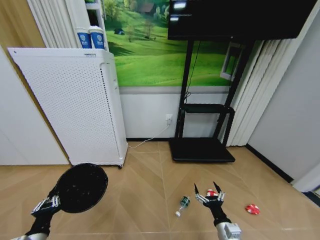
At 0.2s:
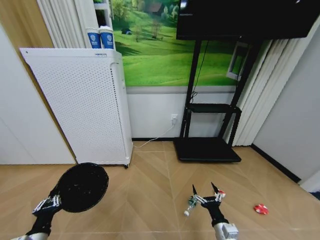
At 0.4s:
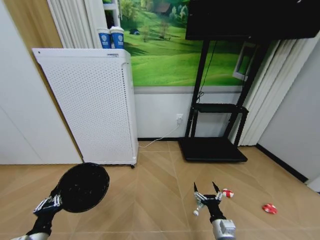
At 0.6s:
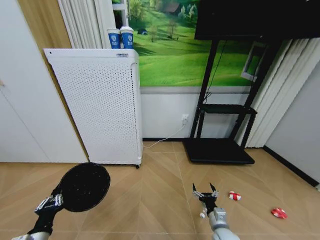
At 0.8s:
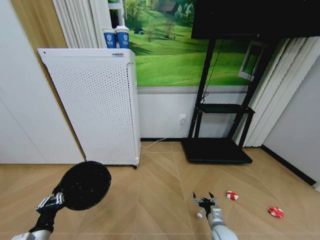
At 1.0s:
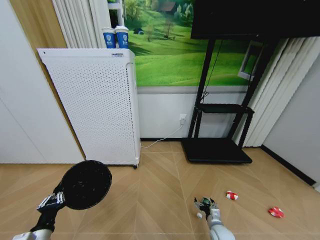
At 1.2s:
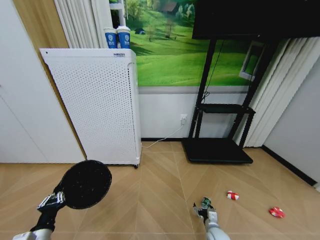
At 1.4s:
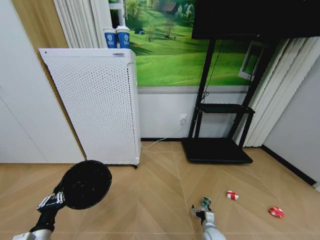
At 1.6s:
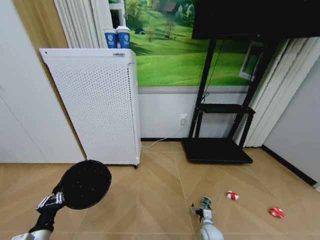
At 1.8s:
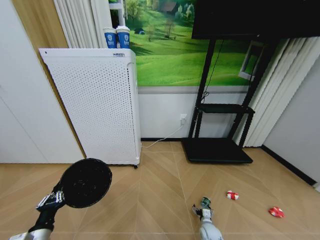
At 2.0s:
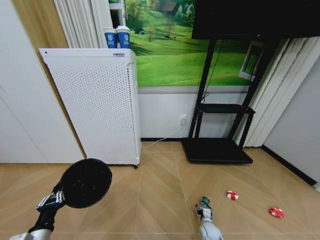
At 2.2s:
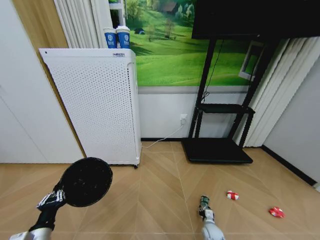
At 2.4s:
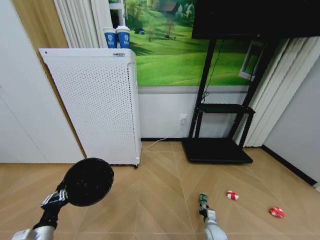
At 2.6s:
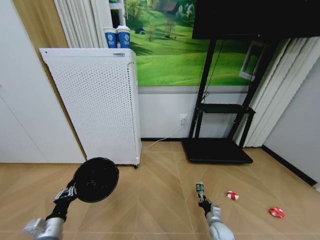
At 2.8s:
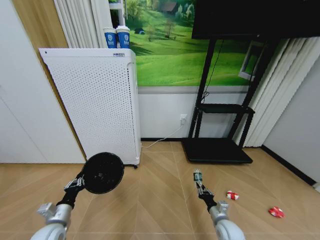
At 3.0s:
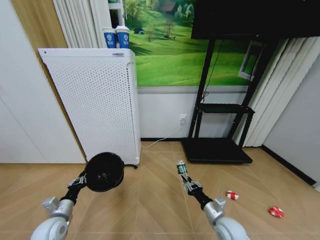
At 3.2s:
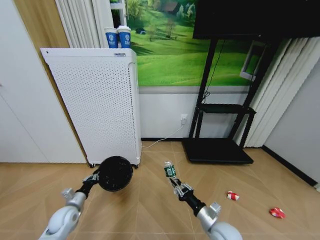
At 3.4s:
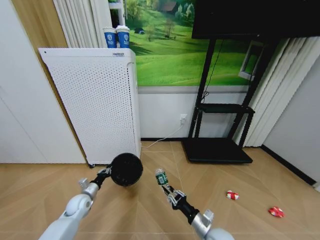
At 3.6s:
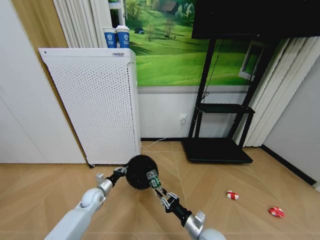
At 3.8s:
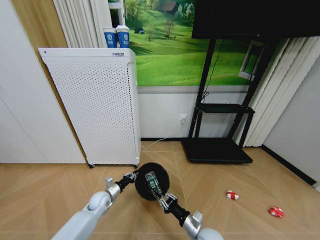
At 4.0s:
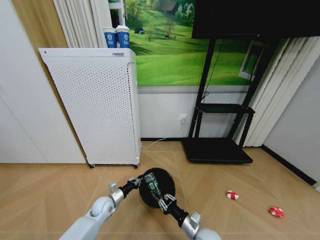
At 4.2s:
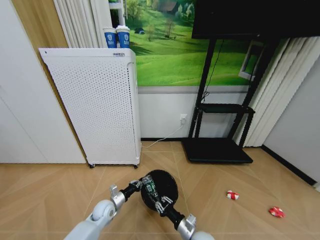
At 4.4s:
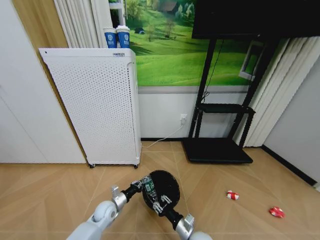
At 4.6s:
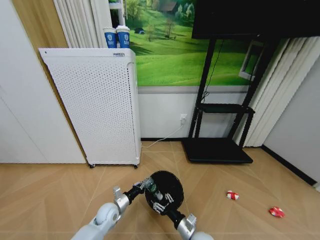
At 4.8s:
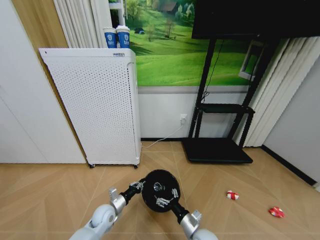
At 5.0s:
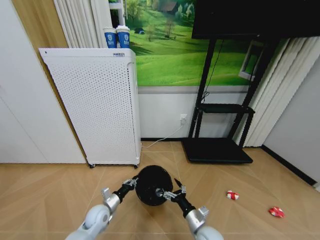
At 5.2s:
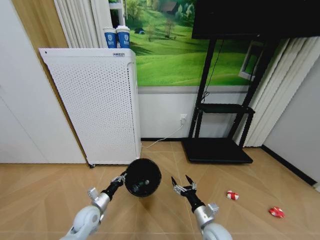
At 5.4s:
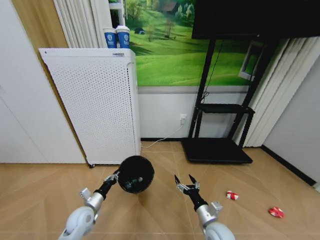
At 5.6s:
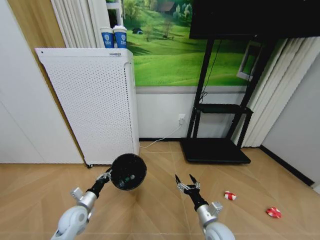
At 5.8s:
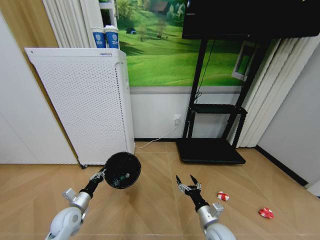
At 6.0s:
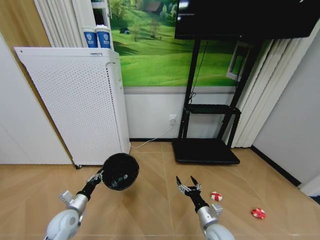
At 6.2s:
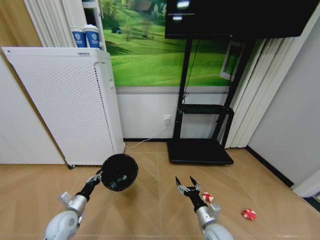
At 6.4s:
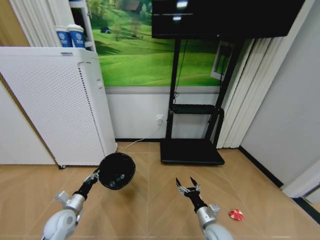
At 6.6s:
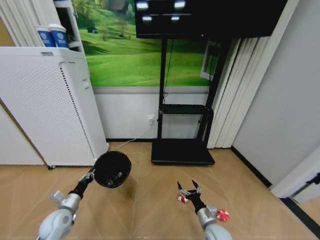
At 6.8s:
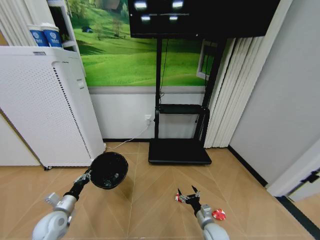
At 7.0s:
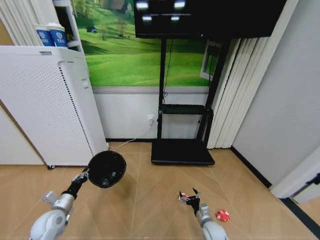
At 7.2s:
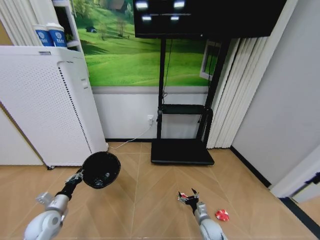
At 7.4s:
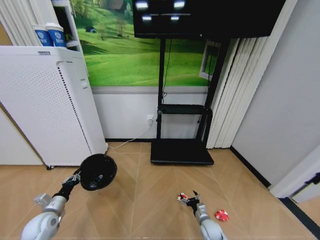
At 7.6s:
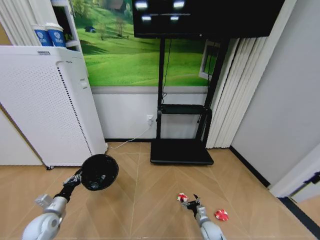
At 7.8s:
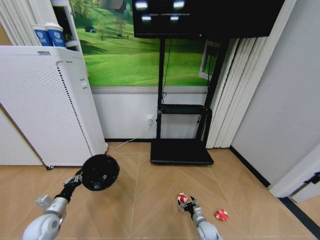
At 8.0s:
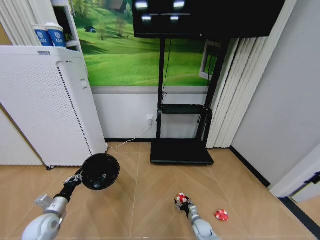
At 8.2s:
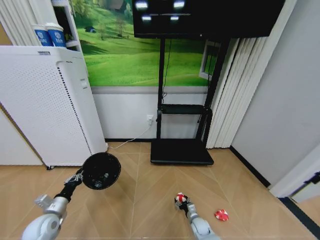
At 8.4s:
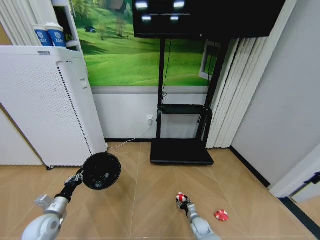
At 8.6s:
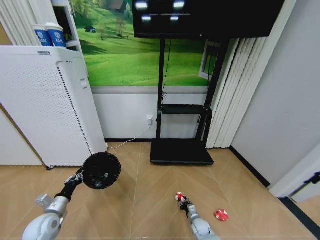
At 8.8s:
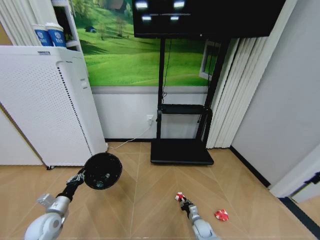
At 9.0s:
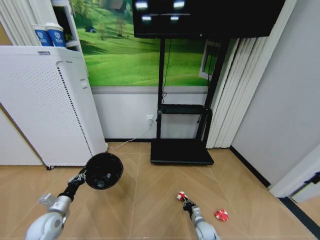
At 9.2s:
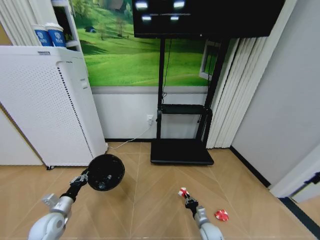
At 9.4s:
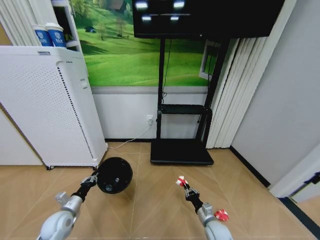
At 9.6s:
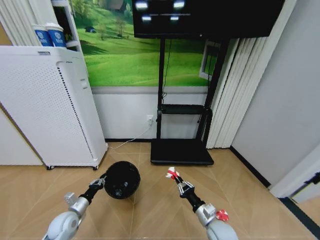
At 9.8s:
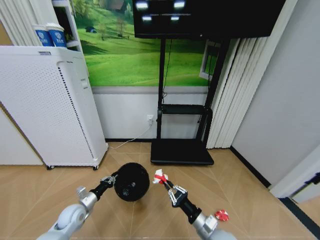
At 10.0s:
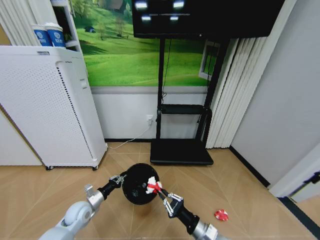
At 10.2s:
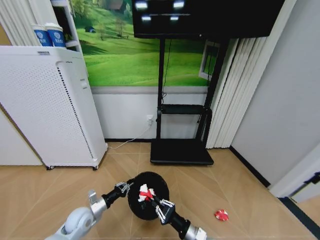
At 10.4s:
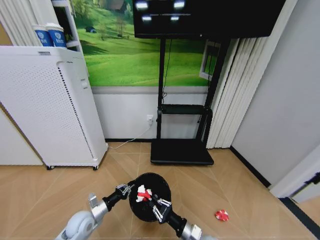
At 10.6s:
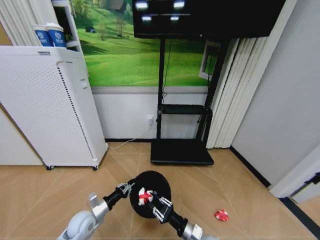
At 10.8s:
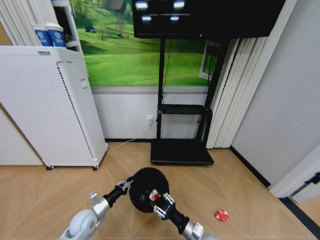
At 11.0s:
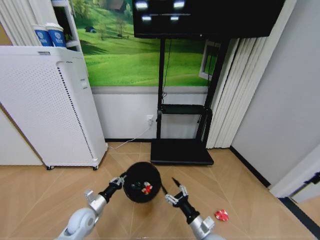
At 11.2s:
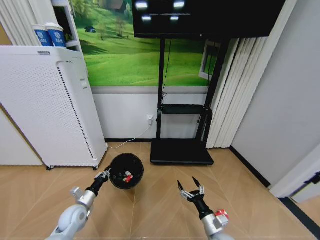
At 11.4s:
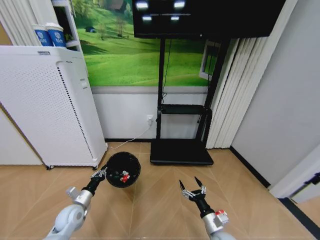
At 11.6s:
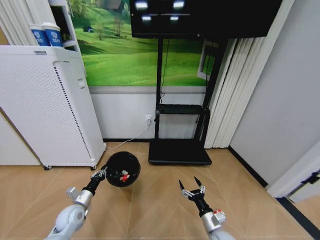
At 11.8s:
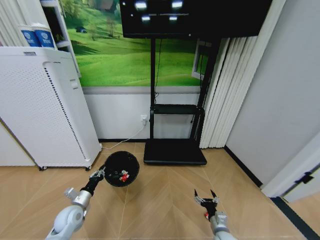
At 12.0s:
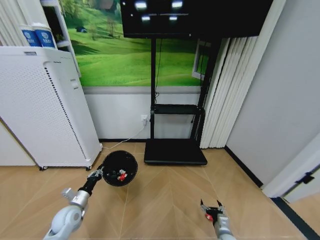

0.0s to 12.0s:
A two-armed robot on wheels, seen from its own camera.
Task of the whole recording: Pick up the trash bin and place the garbage on the floor into it.
0.0s to 1.6s: The right gripper moves downward and forward, approximately 20 cm.
1.6s to 3.0s: The left gripper shifts approximately 10 cm forward, while the right gripper travels upward by about 20 cm, and closes.
3.0s to 4.4s: The right gripper heads to the left and downward, covering approximately 10 cm. The left gripper goes some 20 cm to the right, forward and downward.
4.4s to 6.0s: The right gripper is displaced to the right by roughly 5 cm, and opens. The left gripper is displaced to the left, upward and backward by some 15 cm.
6.0s to 7.6s: The right gripper travels downward by approximately 15 cm, while the left gripper travels to the left by approximately 10 cm.
7.6s to 9.0s: The right gripper closes its fingers.
9.0s to 10.4s: The right gripper moves upward, backward and to the left, approximately 25 cm. Meanwhile the left gripper goes roughly 10 cm to the right.
10.4s to 12.0s: The right gripper shifts approximately 20 cm to the right and downward, and opens up. Meanwhile the left gripper goes about 5 cm to the left.

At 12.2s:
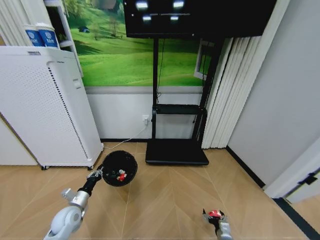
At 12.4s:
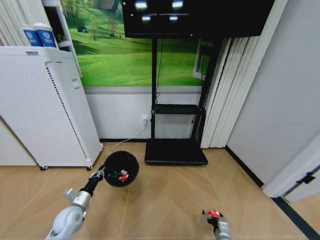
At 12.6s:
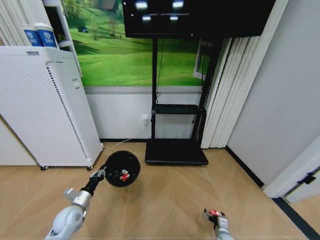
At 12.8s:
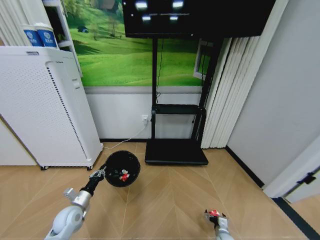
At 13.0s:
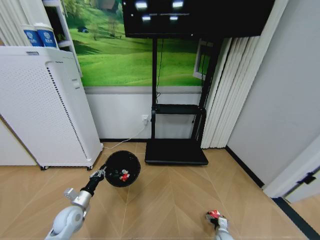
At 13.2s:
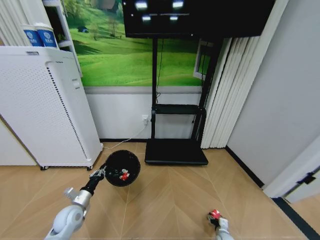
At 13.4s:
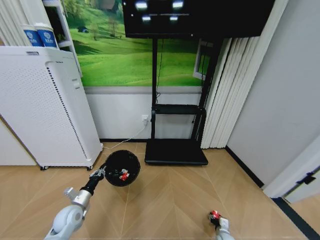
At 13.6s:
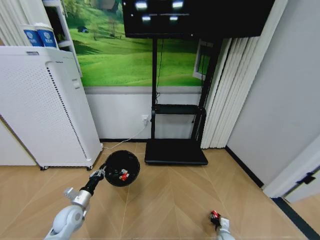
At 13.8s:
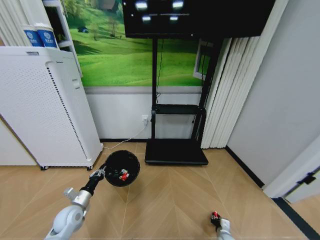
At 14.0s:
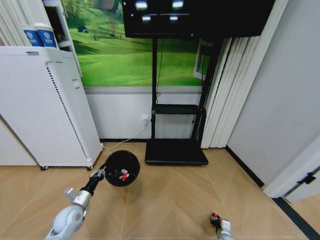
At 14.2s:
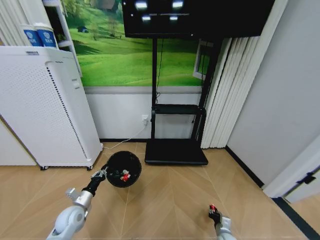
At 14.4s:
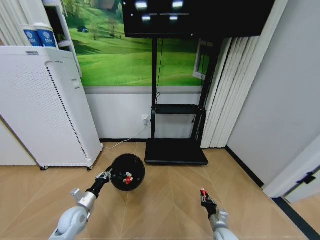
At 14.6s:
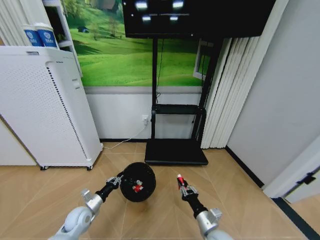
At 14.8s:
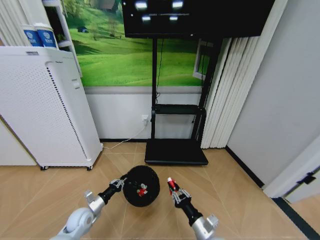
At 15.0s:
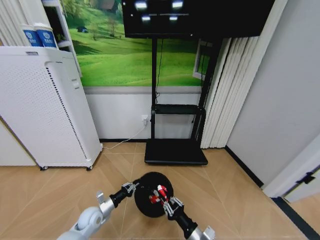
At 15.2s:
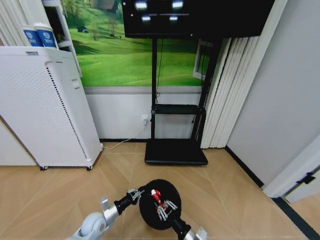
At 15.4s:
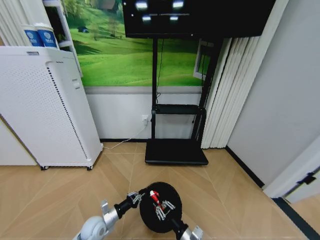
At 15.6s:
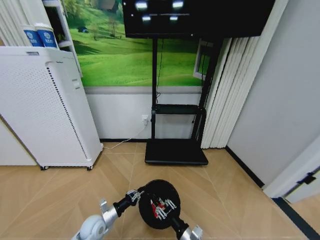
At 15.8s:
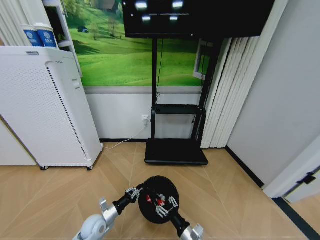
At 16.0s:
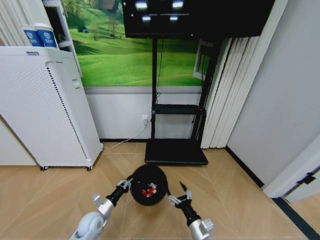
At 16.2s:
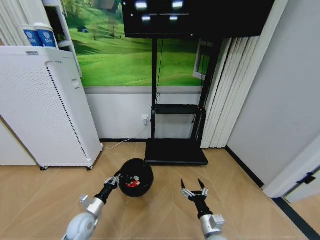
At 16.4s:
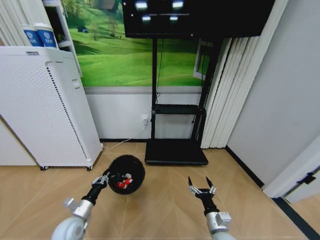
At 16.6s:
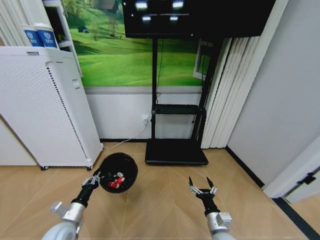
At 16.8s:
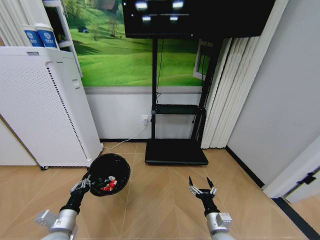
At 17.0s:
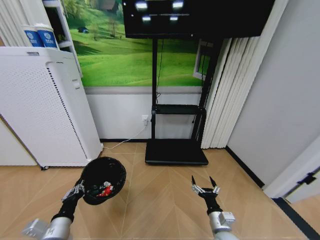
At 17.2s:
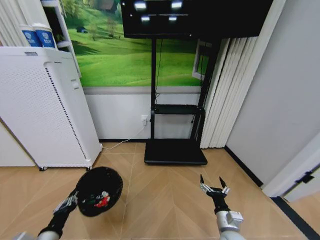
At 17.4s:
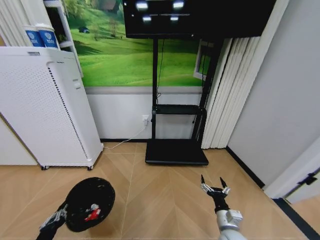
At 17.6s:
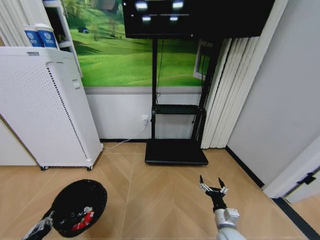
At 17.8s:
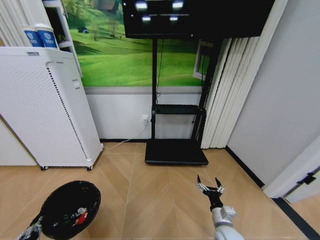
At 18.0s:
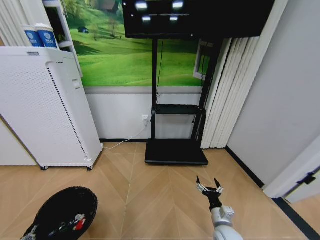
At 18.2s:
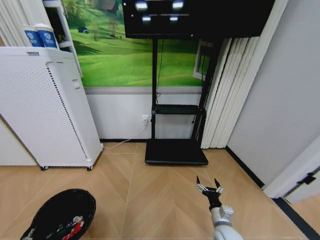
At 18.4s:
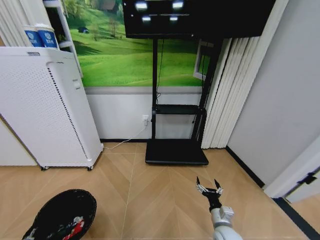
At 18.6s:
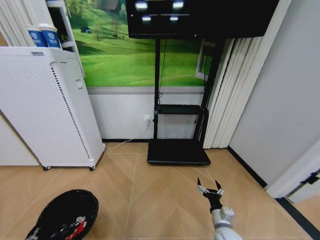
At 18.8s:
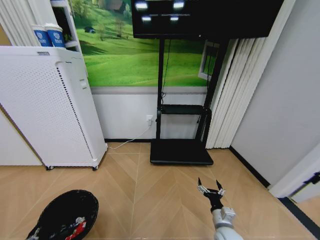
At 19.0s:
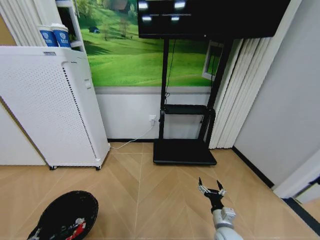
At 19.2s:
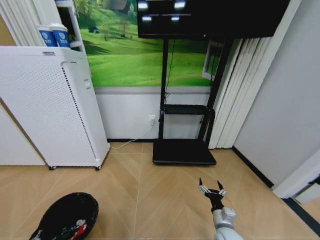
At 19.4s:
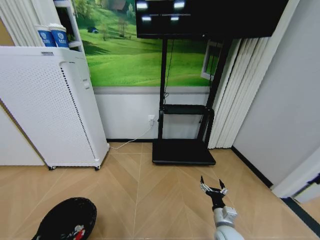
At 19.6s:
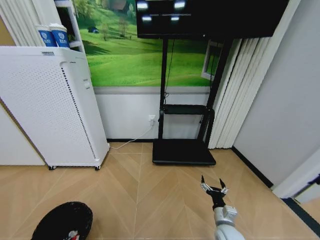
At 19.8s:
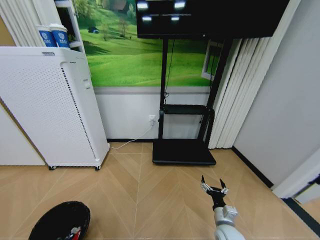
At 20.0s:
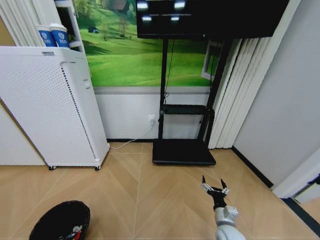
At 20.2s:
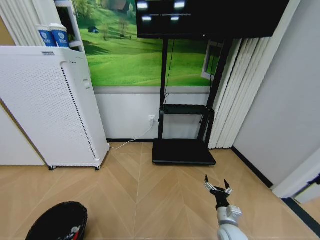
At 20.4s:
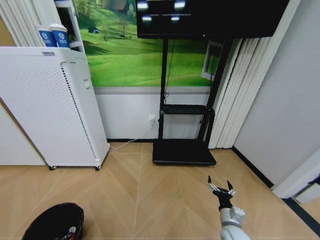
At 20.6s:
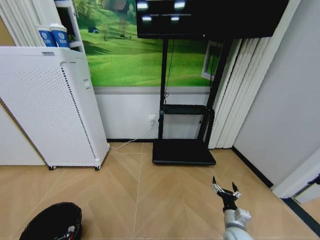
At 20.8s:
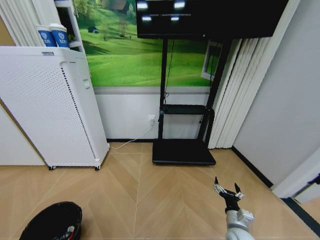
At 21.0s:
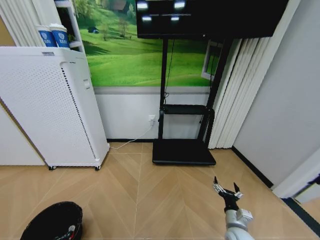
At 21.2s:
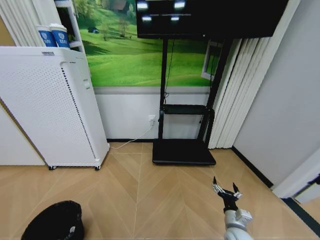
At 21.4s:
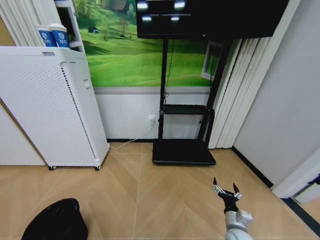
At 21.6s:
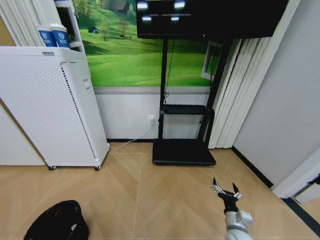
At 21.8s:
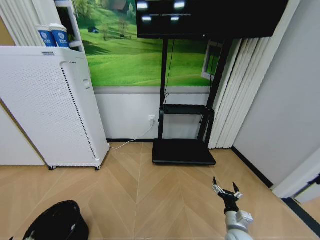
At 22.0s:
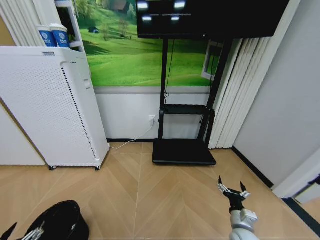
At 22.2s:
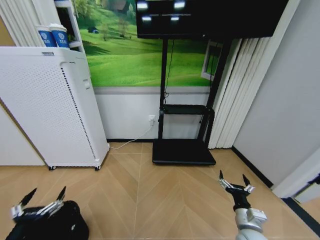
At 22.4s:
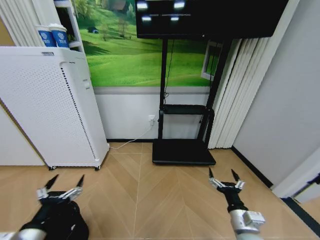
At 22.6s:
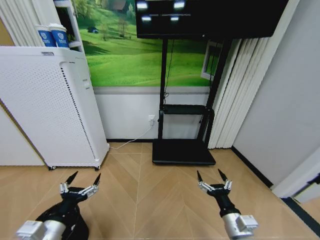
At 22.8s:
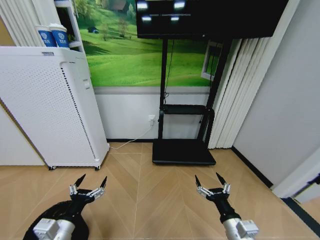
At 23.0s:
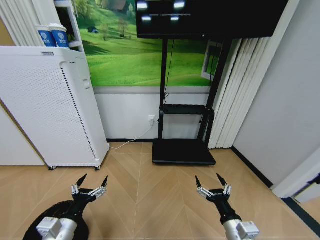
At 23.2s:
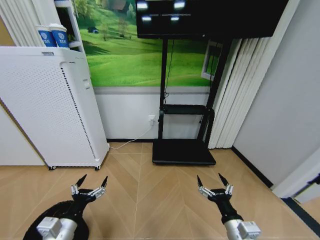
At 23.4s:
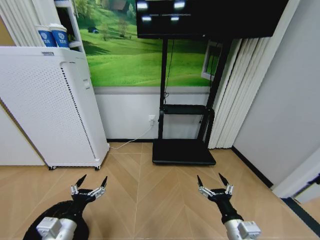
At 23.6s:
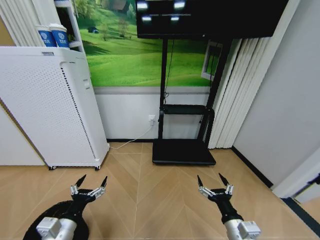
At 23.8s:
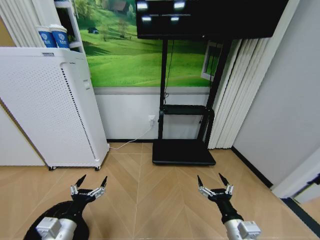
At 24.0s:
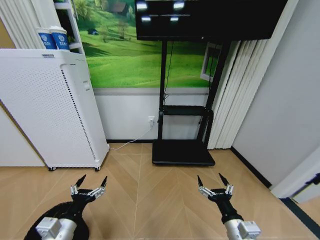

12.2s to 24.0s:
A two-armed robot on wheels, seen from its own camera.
Task of the whole recording: Pick up the trash bin and place the garbage on the floor into it.
12.2s to 13.6s: The right gripper shifts by approximately 5 cm, and closes up.
13.6s to 15.2s: The right gripper goes roughly 30 cm upward, to the left and backward. The left gripper goes about 10 cm to the right and downward.
15.2s to 16.6s: The left gripper goes some 15 cm upward, backward and to the left; the right gripper shifts roughly 5 cm to the right, and opens up.
16.6s to 18.2s: The left gripper heads backward, covering about 20 cm.
18.2s to 19.6s: The left gripper travels downward by roughly 5 cm.
19.6s to 21.0s: There are only small adjustments of the grippers.
21.0s to 22.6s: The right gripper goes about 15 cm upward, to the left and backward. The left gripper goes roughly 30 cm upward, to the right and forward, and opens.
22.6s to 24.0s: The grippers move only a little.
